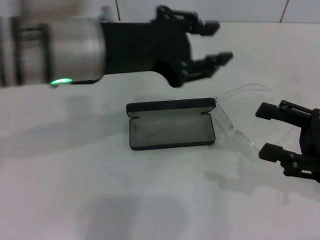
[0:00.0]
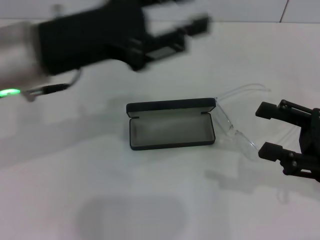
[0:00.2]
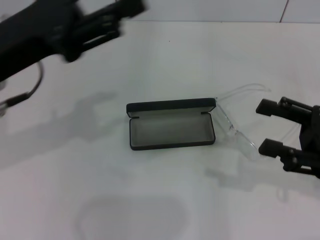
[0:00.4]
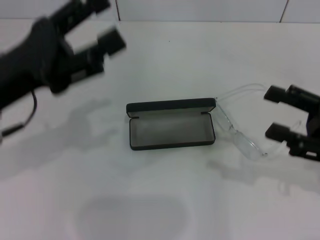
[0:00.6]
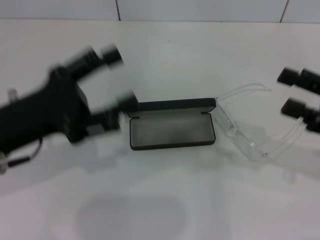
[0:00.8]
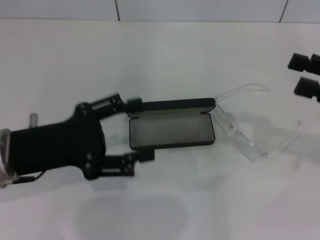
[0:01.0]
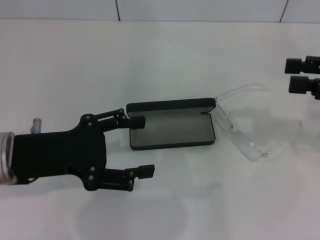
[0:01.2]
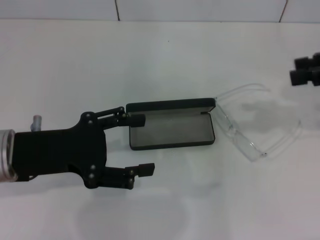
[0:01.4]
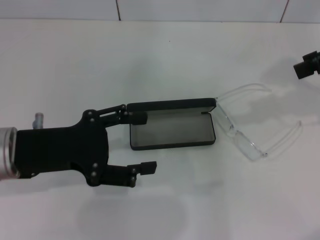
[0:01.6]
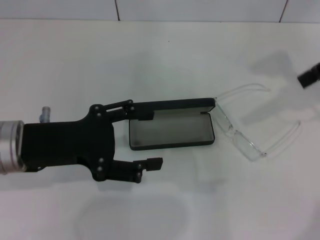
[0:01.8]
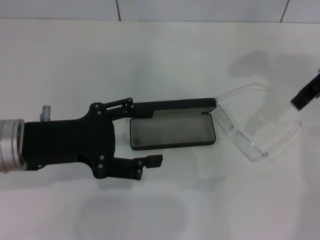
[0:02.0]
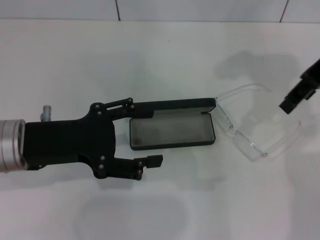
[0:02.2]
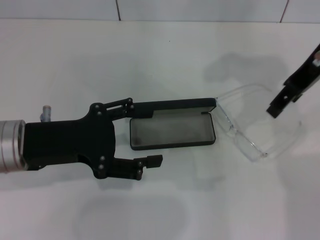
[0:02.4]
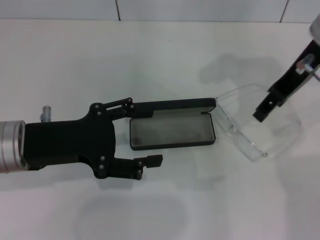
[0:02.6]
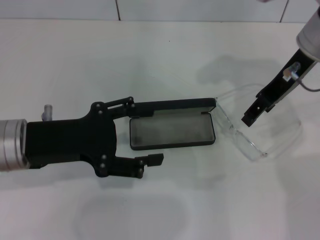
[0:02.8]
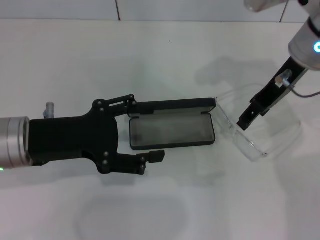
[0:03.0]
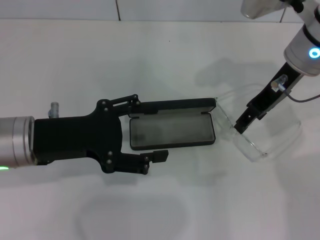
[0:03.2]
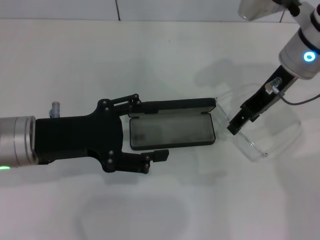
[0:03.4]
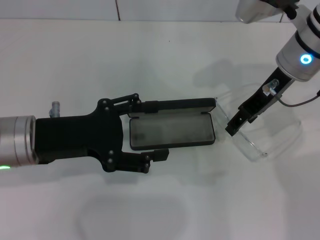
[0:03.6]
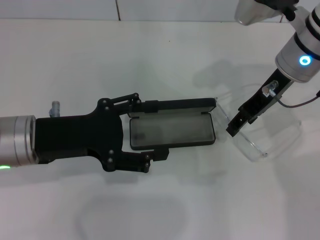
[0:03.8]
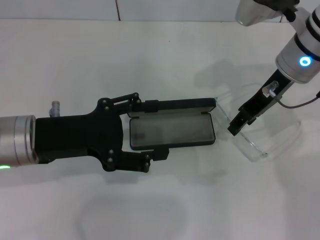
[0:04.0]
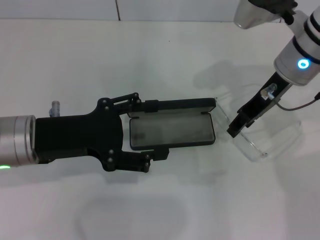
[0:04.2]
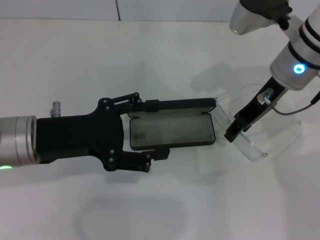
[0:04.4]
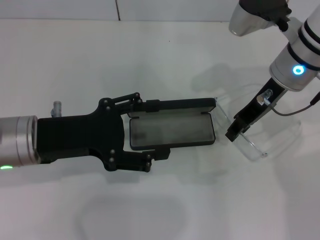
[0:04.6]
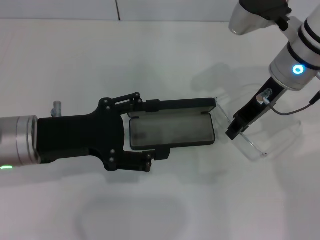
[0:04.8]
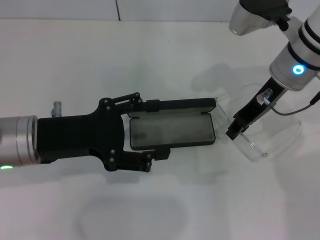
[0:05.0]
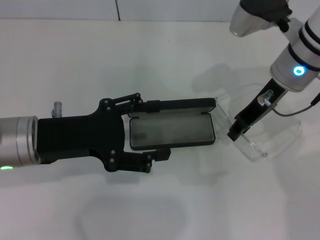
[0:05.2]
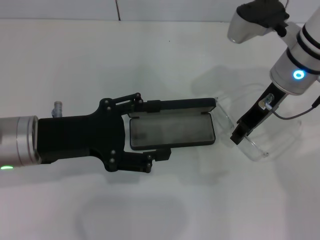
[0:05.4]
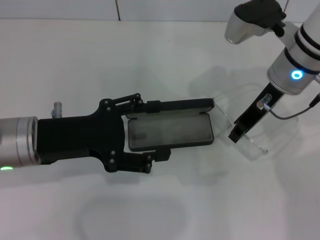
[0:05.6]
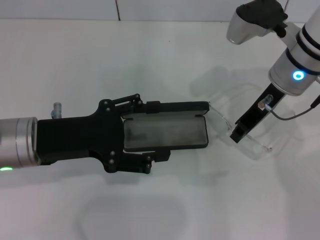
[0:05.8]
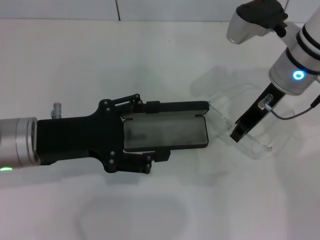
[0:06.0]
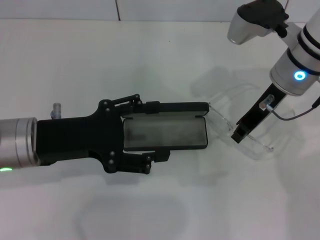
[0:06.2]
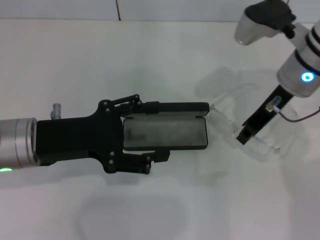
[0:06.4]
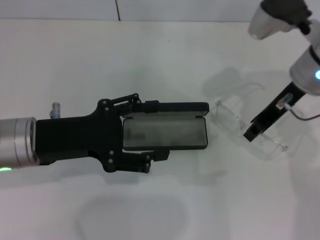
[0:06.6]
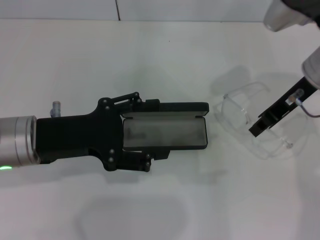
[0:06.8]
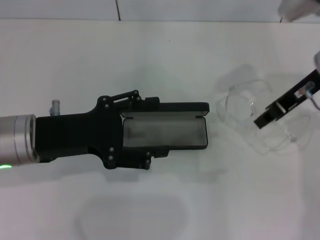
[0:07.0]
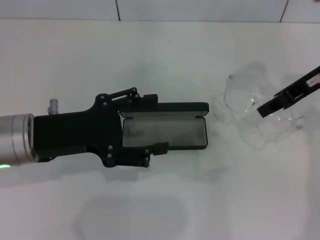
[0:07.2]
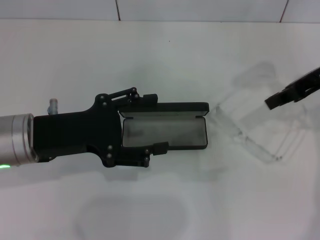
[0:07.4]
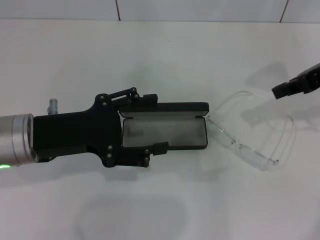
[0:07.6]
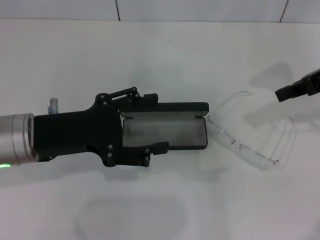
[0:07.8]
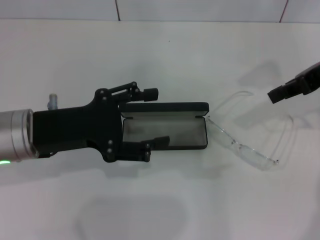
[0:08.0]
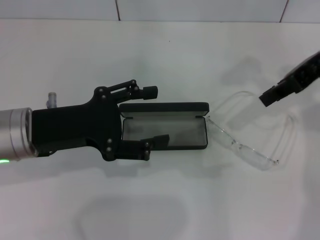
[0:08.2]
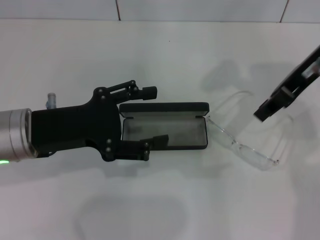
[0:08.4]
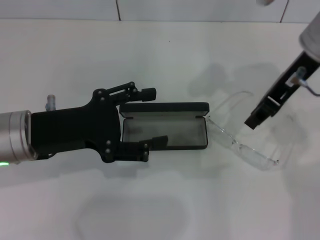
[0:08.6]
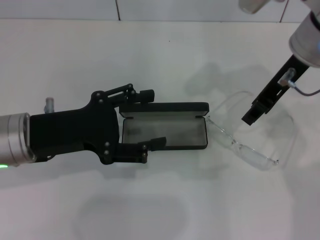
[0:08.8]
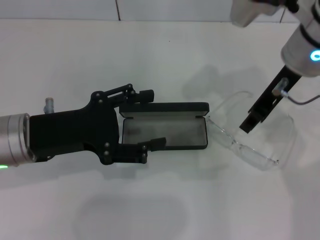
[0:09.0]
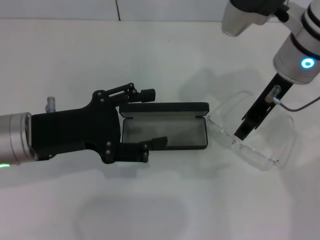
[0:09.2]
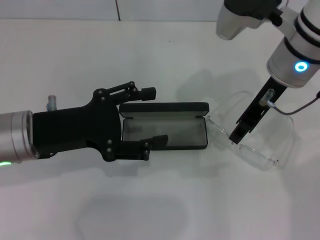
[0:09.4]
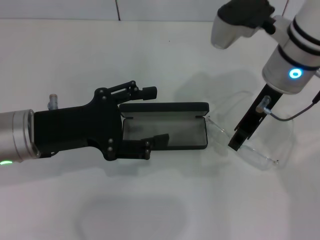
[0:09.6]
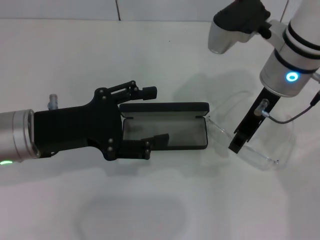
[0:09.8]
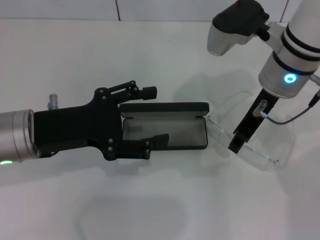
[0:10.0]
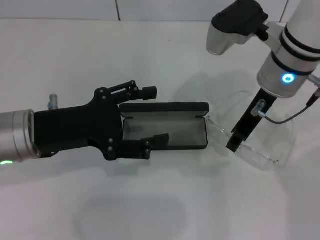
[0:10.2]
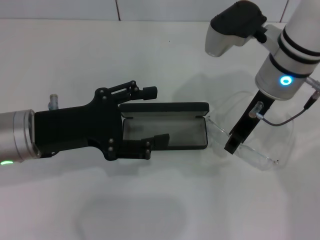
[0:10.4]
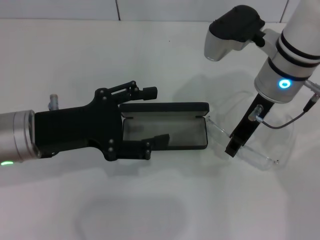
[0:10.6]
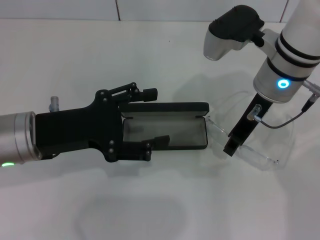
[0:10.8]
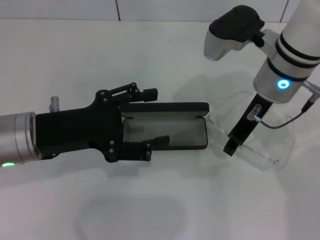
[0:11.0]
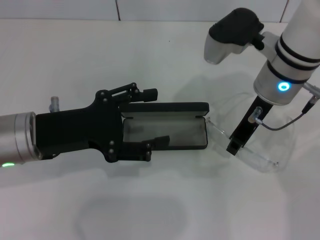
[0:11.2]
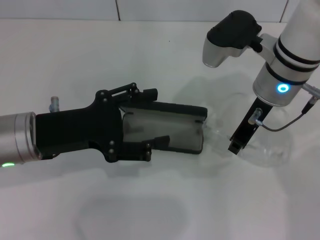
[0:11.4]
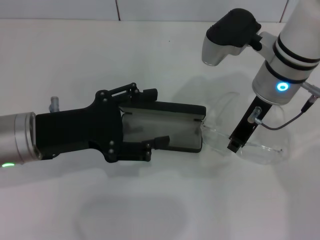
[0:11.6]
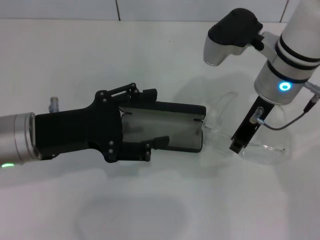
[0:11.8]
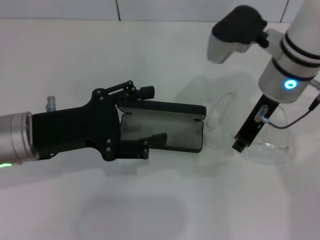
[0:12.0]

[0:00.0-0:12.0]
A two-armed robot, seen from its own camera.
Step, 0:00.0 to 0:11.4: Grab the eyeglass frame with your right hand.
0:00.0 to 0:01.6: The left gripper is displaced downward and to the left by approximately 15 cm, and opens its fingers, while the right gripper heads upward and forward, covering some 20 cm.
0:01.6 to 0:03.0: The right gripper is displaced to the left and downward by approximately 15 cm.
0:03.0 to 0:04.4: The grippers stay close to where they were, moving slightly.
0:04.4 to 0:06.0: The right gripper closes up.
0:06.0 to 0:07.6: The right gripper travels to the right and upward by about 15 cm.
0:07.6 to 0:09.0: The right gripper travels to the left by some 10 cm, and opens.
0:09.0 to 0:10.4: The grippers stay close to where they were, moving slightly.
0:10.4 to 0:12.0: Both grippers stay put.

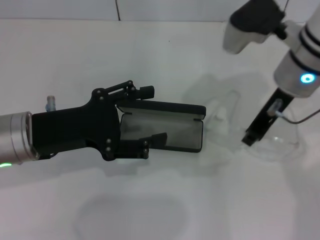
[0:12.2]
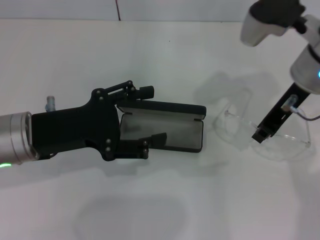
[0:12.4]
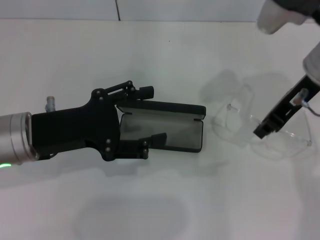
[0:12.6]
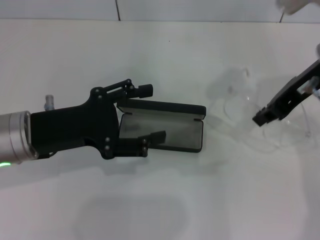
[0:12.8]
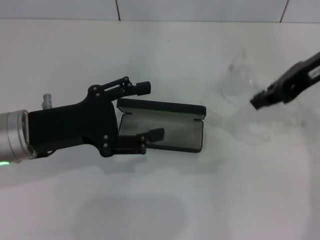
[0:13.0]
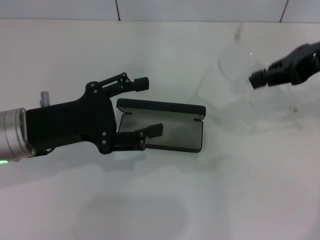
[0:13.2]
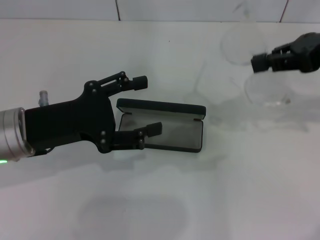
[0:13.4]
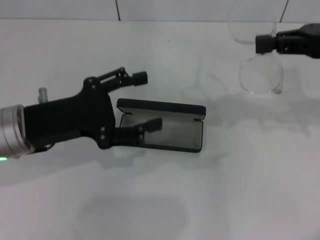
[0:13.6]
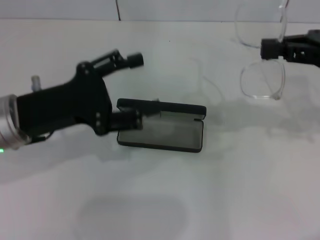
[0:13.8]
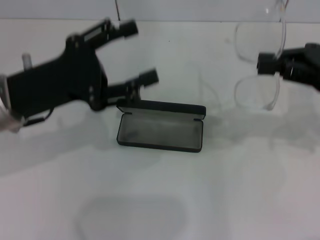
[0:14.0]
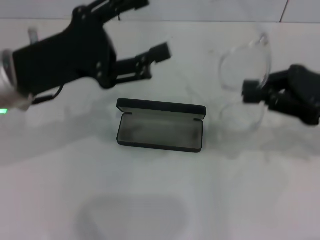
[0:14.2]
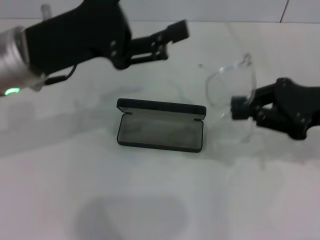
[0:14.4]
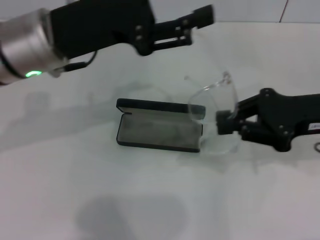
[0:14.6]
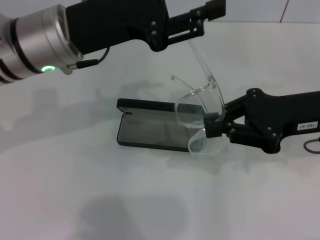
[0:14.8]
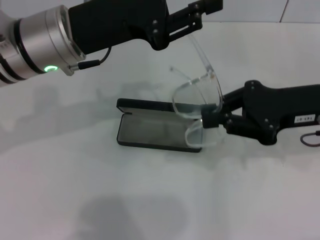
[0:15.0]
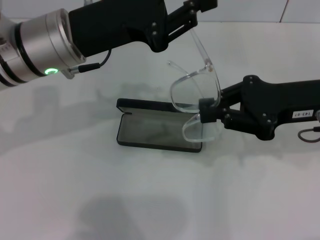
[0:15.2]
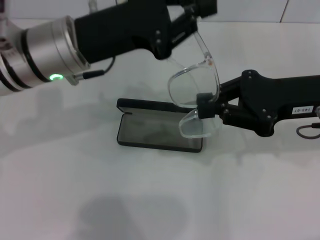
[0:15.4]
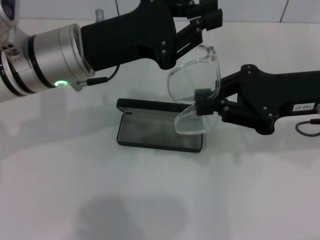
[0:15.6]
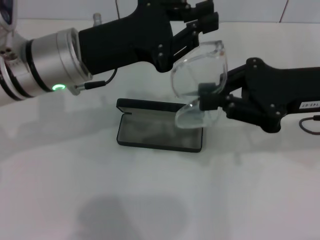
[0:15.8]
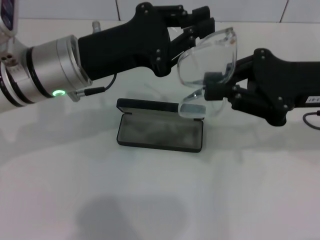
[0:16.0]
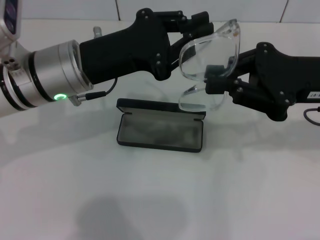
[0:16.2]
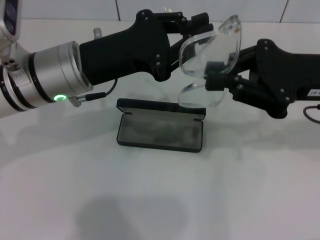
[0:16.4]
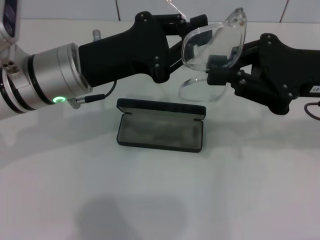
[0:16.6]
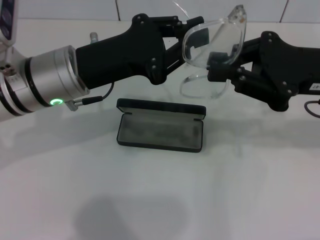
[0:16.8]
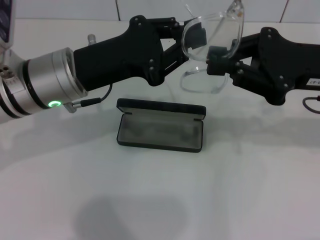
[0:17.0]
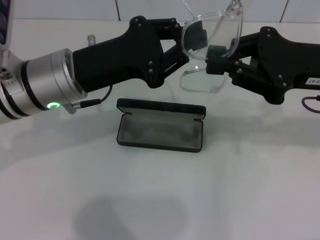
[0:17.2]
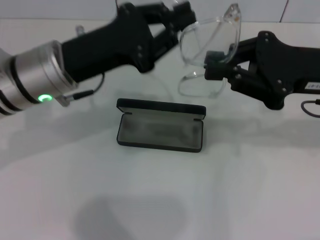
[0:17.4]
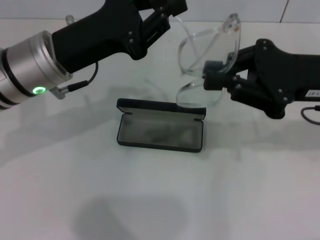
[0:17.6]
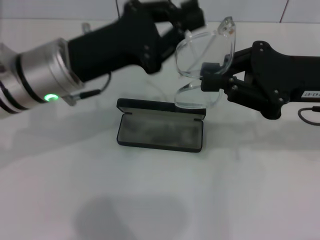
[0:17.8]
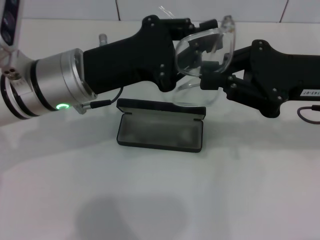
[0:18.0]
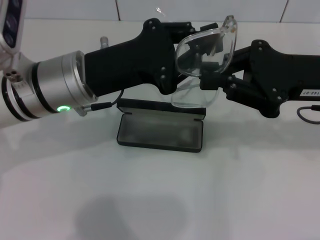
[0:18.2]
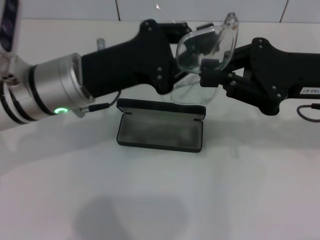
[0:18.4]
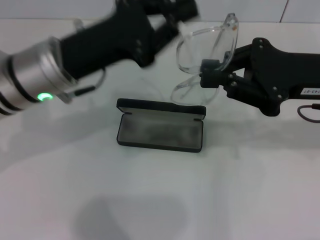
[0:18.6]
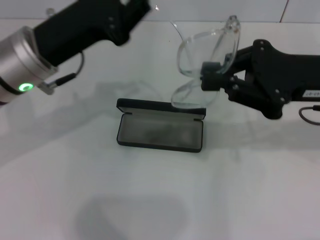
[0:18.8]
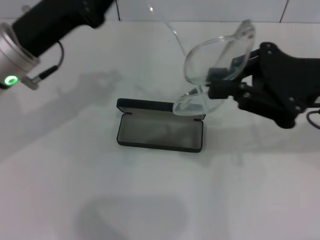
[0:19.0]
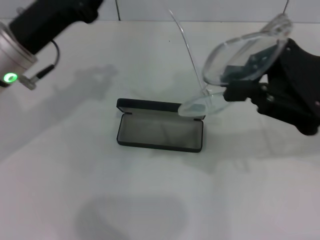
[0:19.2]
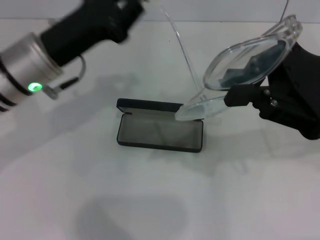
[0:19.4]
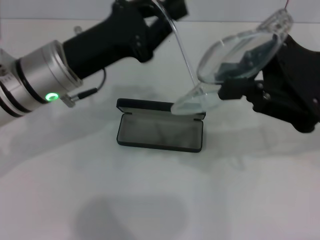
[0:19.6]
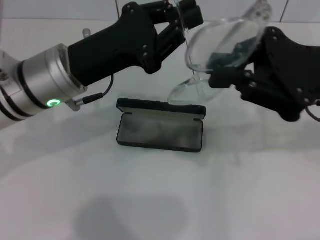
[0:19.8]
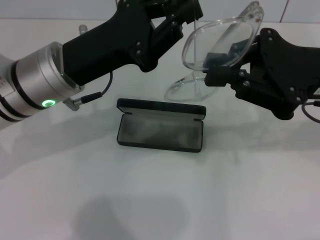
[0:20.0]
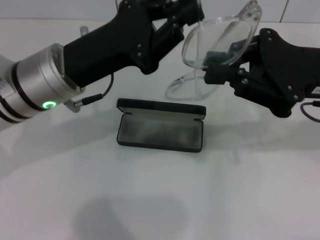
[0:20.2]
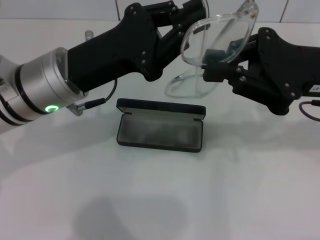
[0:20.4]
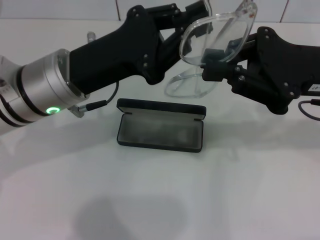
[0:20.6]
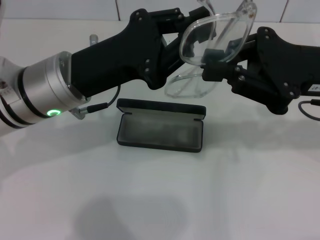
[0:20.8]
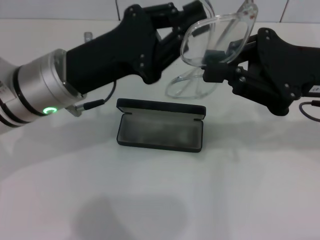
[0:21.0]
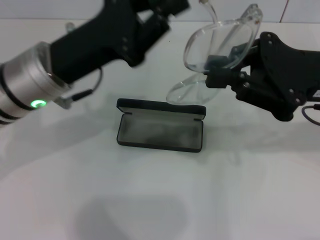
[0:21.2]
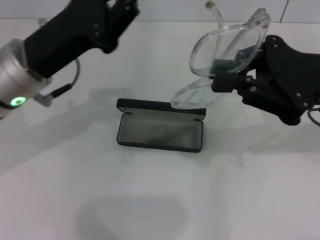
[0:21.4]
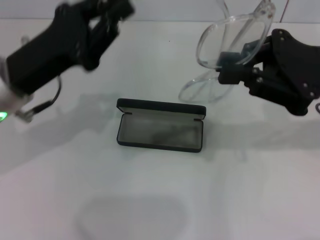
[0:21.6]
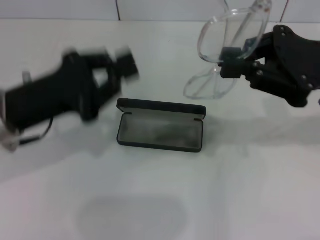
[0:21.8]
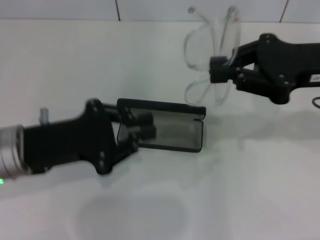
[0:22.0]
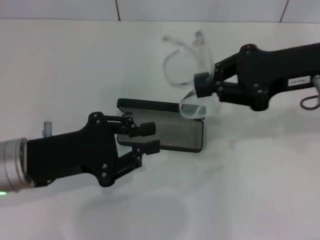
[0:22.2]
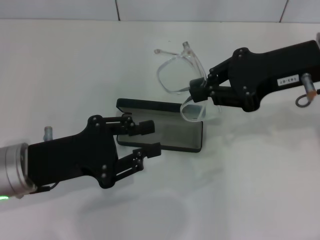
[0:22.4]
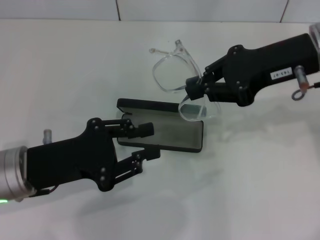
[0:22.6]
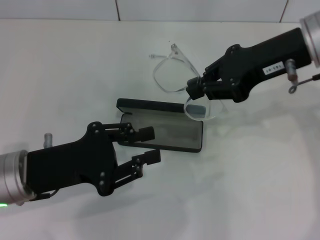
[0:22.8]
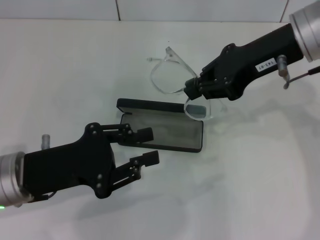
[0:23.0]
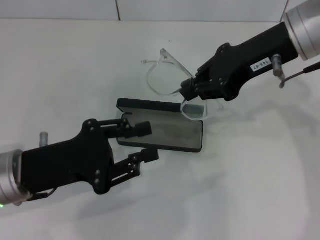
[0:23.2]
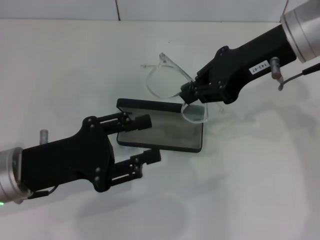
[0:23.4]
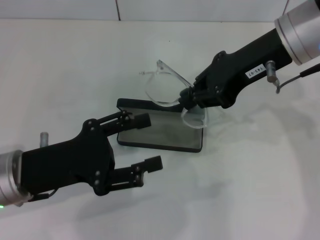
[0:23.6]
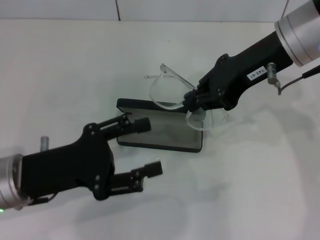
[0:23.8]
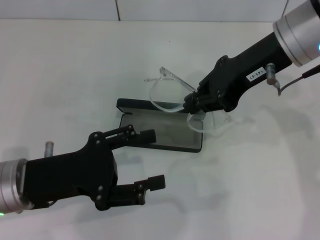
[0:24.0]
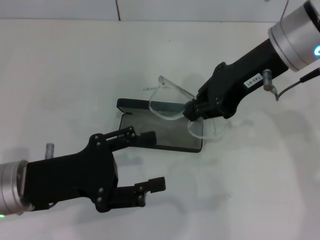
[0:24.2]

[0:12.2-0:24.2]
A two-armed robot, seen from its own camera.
Step, 0:12.2 to 0:20.6: Fold the frame with your left hand.
0:12.2 to 0:13.8: The right gripper heads to the right, covering some 15 cm.
0:13.8 to 0:15.2: The left gripper moves to the right, forward and upward, about 10 cm, and closes its fingers. The right gripper moves to the left, roughly 5 cm.
0:16.6 to 0:18.2: The grippers make only small movements.
0:19.8 to 0:21.2: The grippers make only small movements.
0:21.2 to 0:22.6: The right gripper shifts by roughly 5 cm. The left gripper travels backward, downward and to the left by roughly 10 cm.
0:22.6 to 0:24.2: The left gripper opens its fingers; the right gripper ends up approximately 5 cm from where it was.
